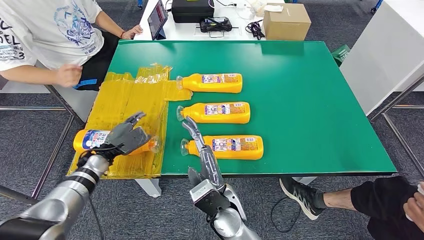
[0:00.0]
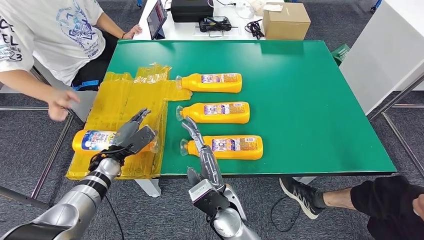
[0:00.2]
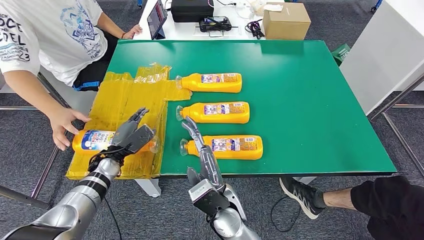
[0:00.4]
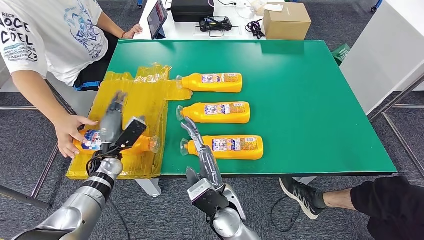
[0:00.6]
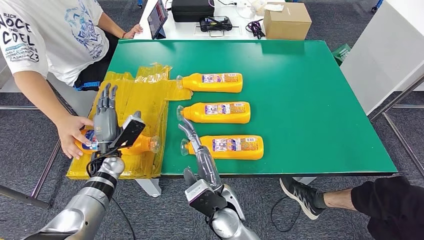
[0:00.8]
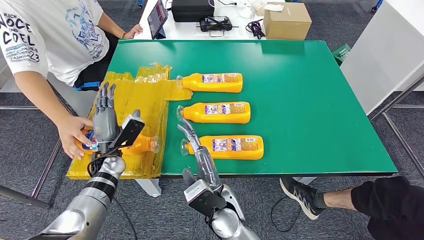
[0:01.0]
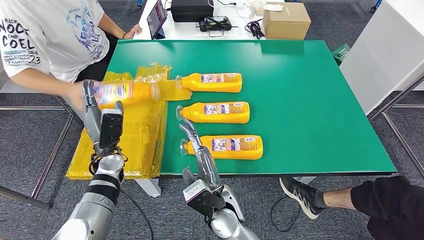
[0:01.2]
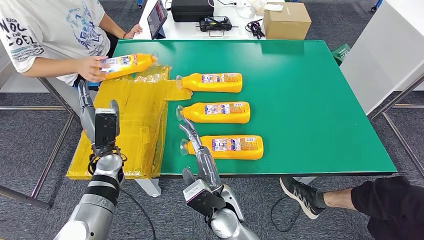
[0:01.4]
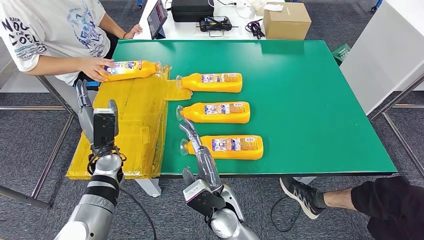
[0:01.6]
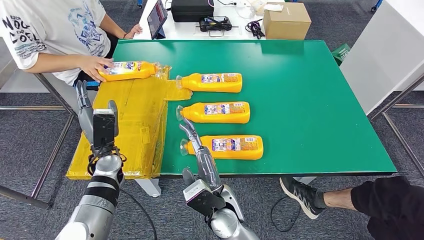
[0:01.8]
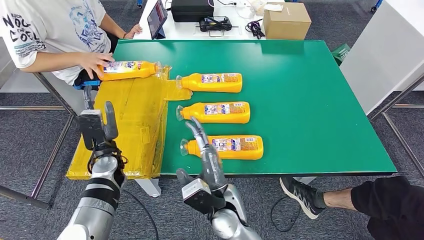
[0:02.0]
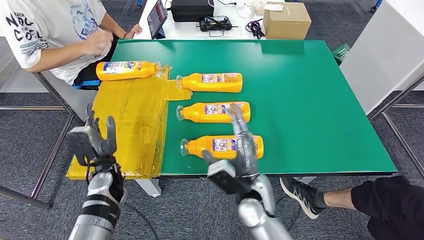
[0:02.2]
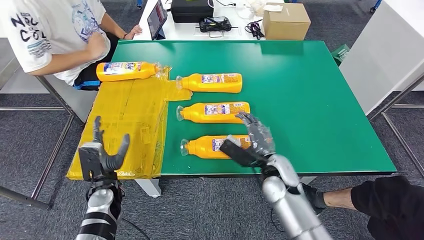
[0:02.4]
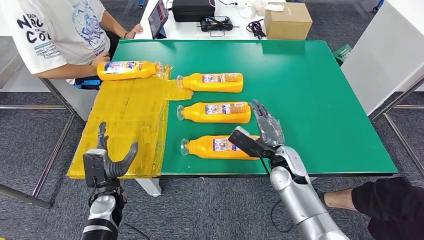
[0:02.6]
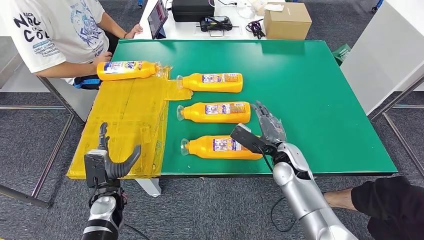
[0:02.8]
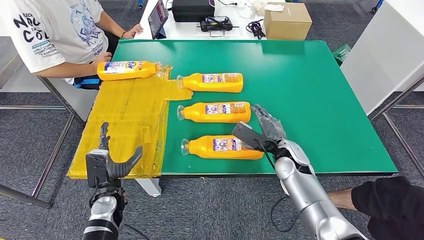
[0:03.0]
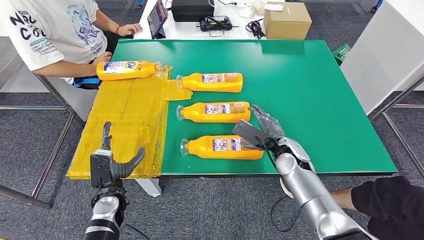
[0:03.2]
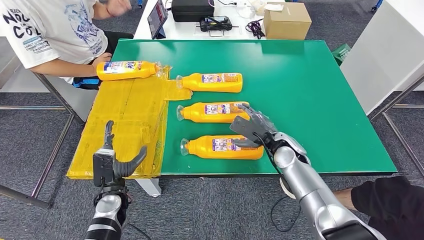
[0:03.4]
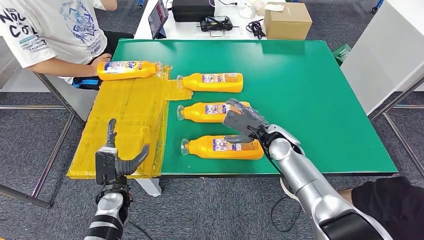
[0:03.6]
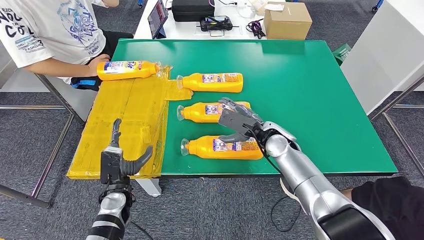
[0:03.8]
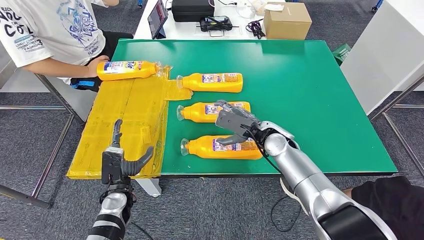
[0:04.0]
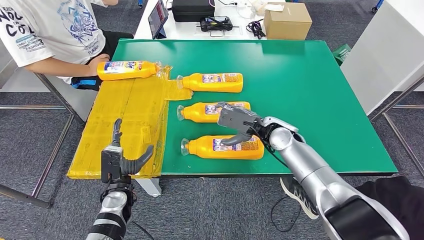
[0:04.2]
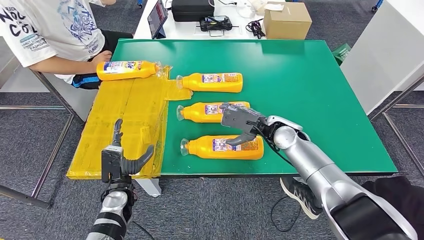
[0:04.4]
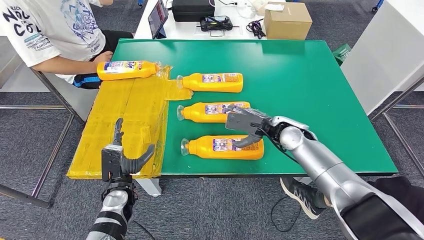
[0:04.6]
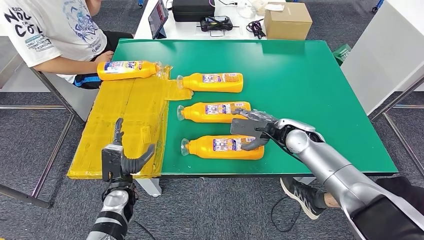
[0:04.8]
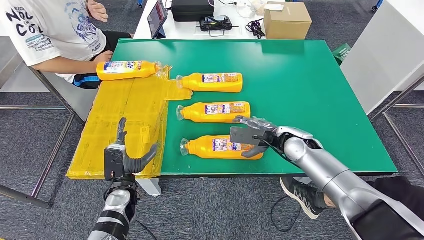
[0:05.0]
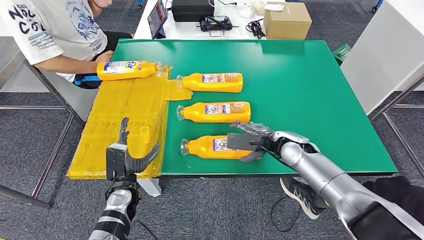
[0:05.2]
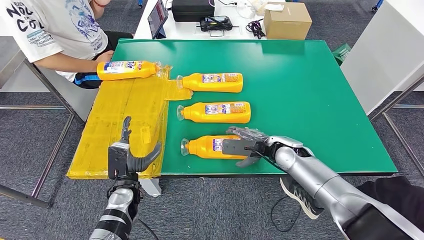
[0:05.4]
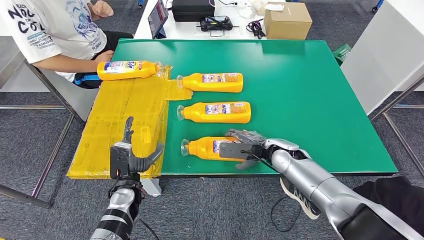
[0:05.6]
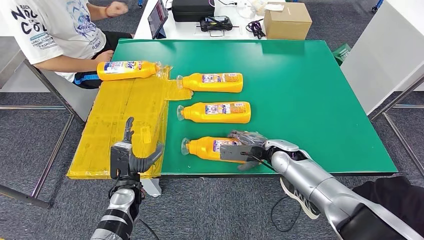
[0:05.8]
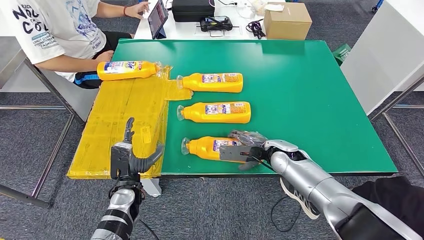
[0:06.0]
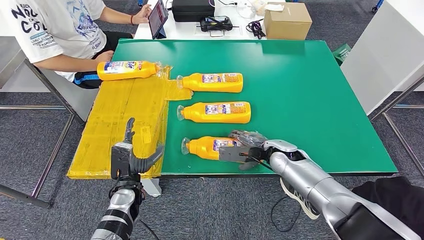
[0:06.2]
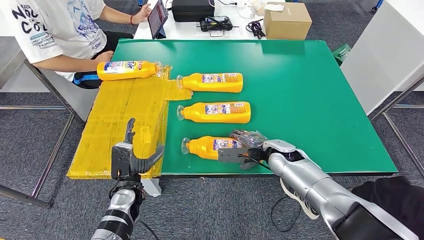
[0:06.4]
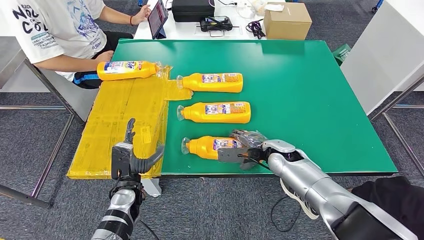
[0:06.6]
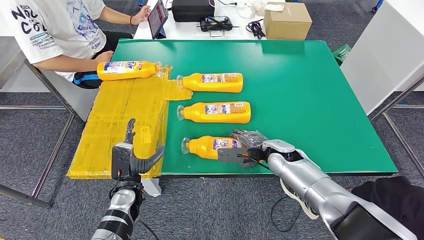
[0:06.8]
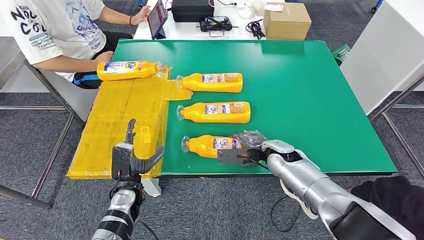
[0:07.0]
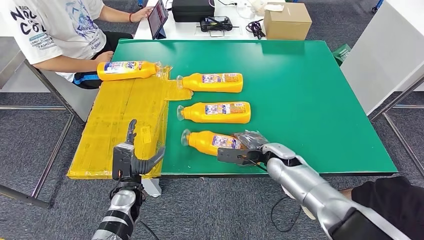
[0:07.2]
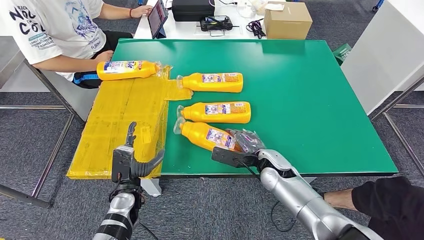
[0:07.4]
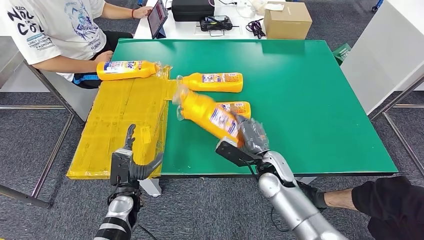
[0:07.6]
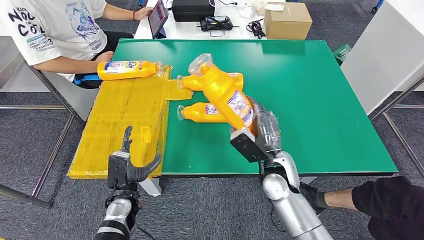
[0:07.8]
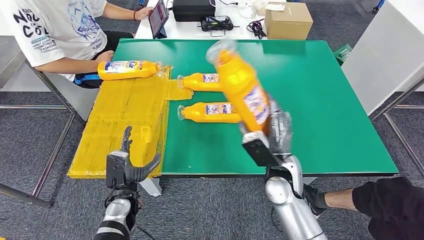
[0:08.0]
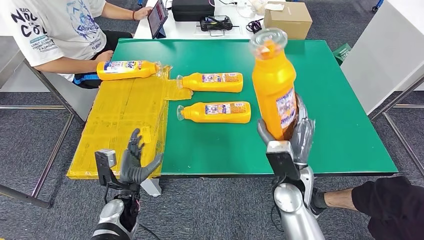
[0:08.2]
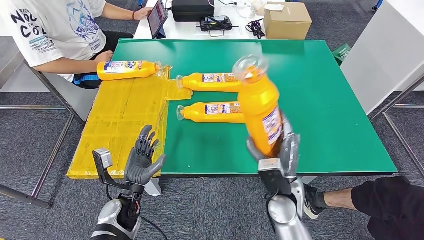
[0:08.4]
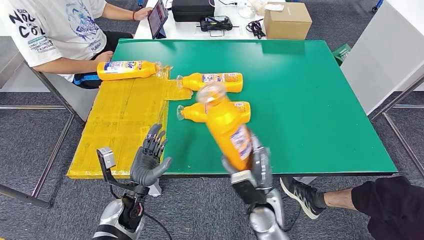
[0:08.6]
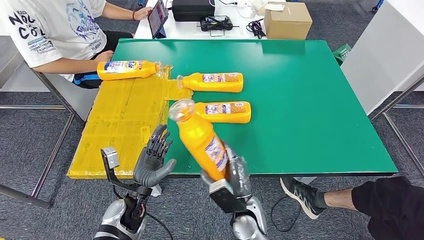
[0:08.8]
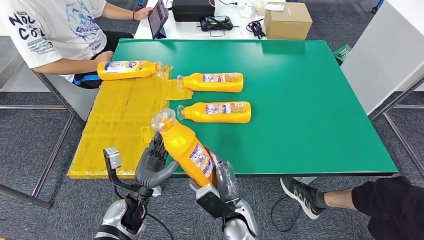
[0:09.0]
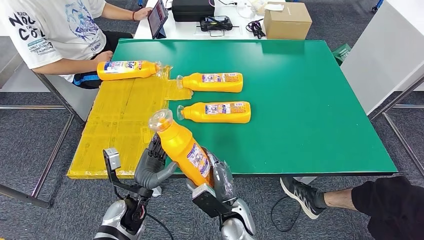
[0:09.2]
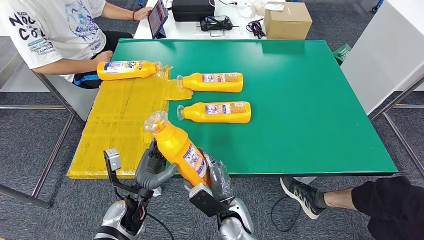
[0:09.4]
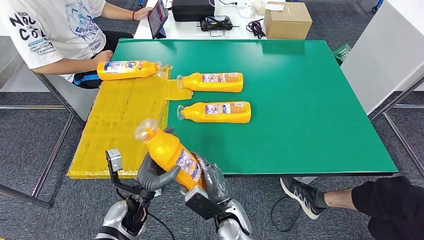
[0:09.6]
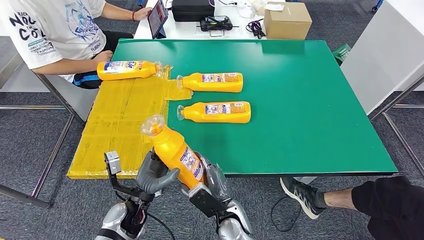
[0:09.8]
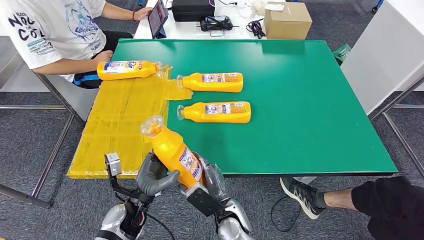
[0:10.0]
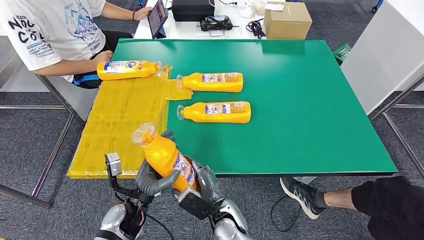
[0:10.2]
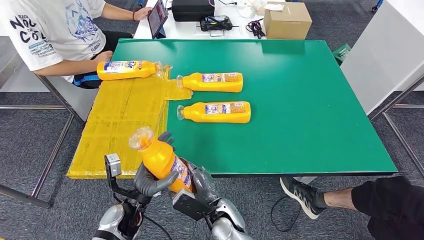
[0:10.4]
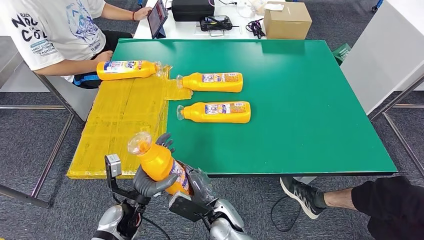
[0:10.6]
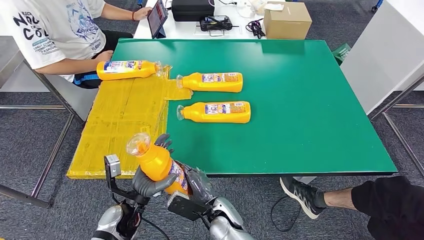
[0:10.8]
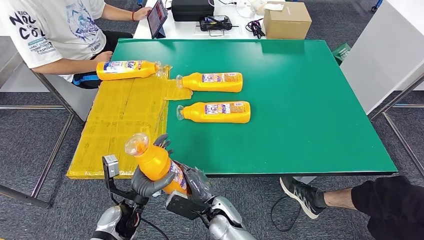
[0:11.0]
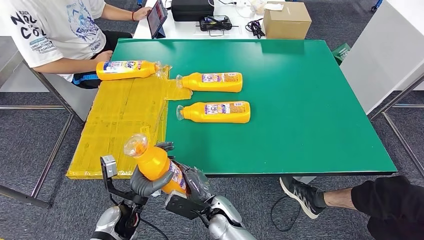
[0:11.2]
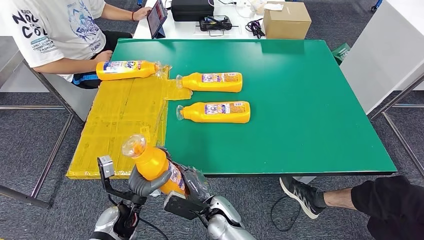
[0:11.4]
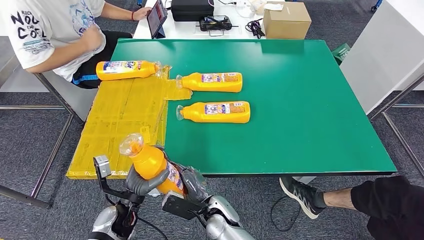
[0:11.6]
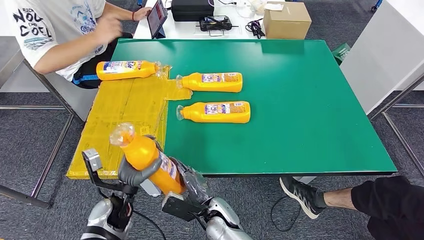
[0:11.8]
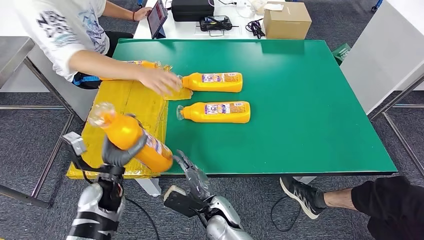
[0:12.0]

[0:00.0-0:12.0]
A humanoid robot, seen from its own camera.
Step, 0:01.0 to 0:09.0: Pick up the fast-moving consumer goods bottle from the table.
0:01.6 to 0:03.0: The left hand moves backward and downward, approximately 10 cm, while the right hand travels to the right and forward by some 25 cm.
0:03.0 to 0:04.4: The right hand is displaced upward by roughly 5 cm.
0:04.4 to 0:06.0: The right hand heads downward, covering roughly 5 cm.
0:06.0 to 0:07.6: The right hand is displaced to the left by about 5 cm.
0:07.6 to 0:09.0: The right hand is displaced backward, to the left and downward by roughly 15 cm.
0:09.0 to 0:10.4: The hands stay close to where they were, moving slightly.
0:10.4 to 0:12.0: The left hand goes some 5 cm forward.

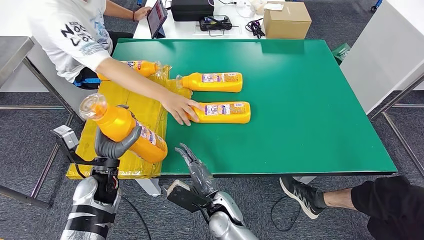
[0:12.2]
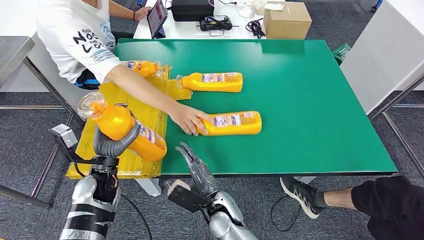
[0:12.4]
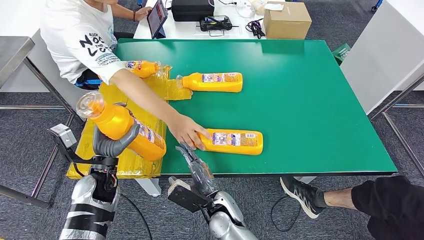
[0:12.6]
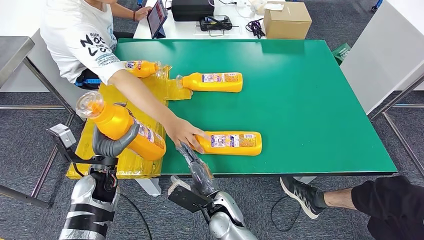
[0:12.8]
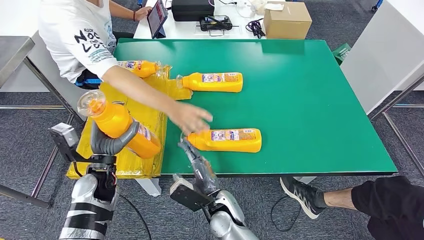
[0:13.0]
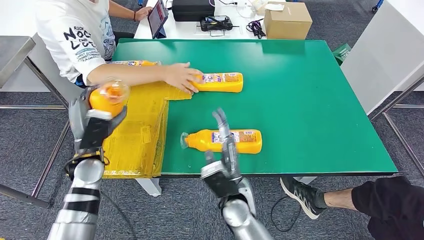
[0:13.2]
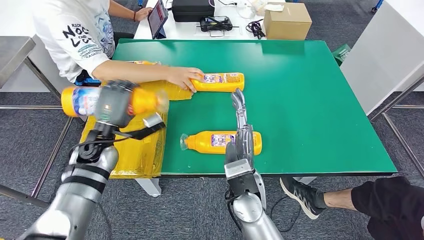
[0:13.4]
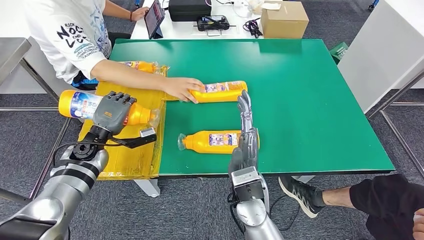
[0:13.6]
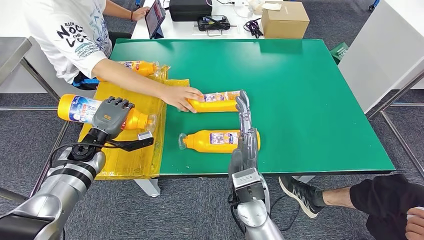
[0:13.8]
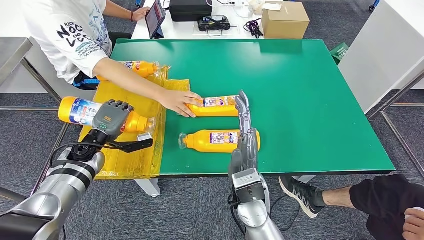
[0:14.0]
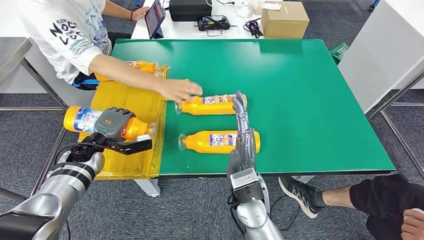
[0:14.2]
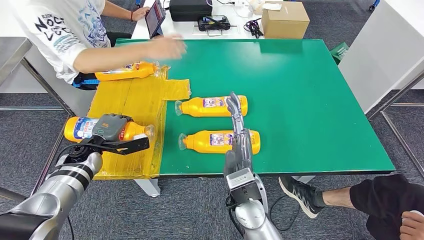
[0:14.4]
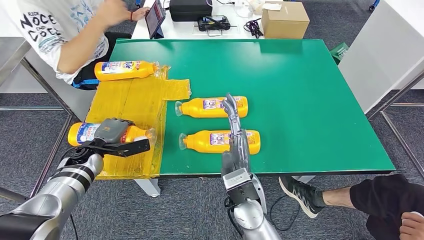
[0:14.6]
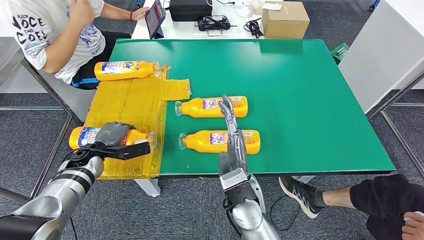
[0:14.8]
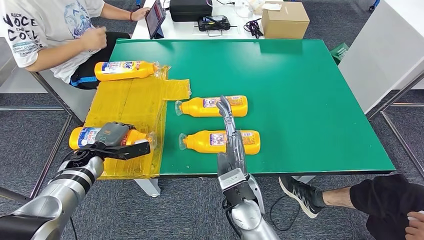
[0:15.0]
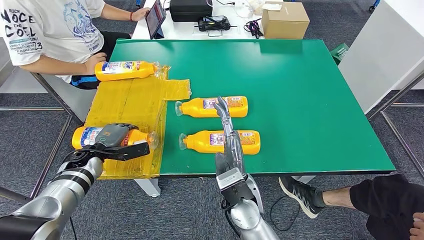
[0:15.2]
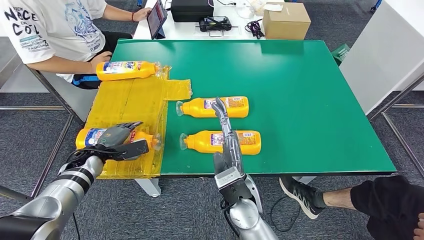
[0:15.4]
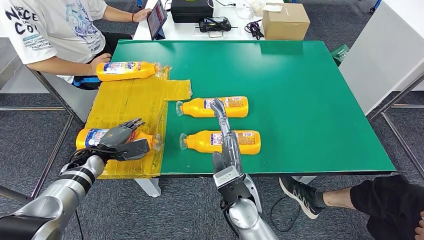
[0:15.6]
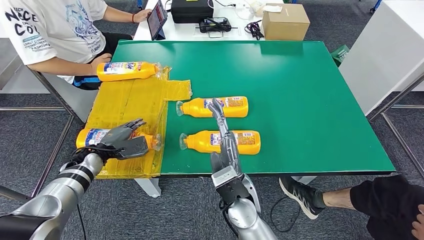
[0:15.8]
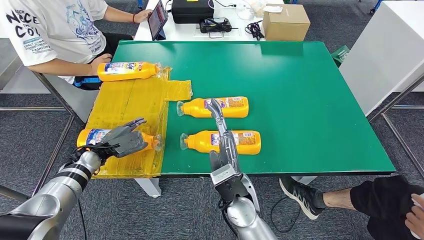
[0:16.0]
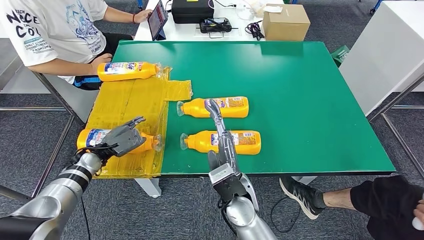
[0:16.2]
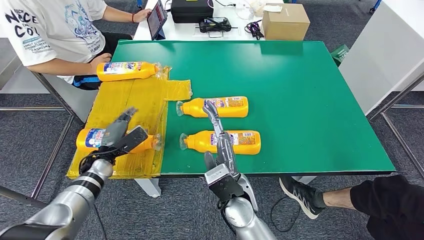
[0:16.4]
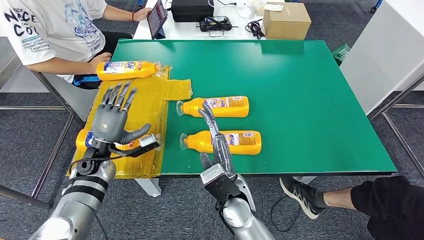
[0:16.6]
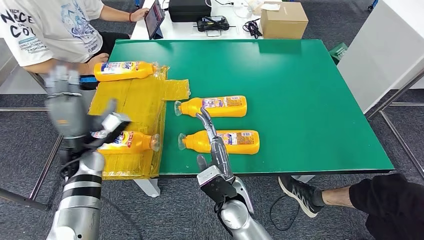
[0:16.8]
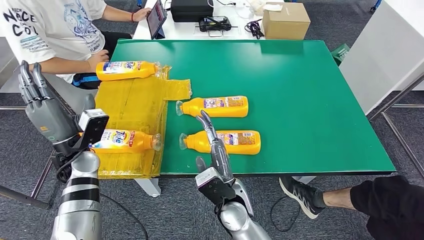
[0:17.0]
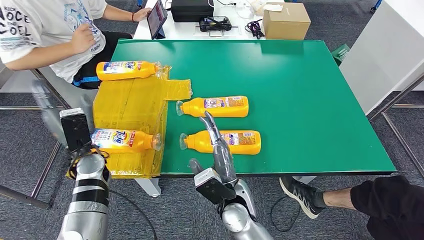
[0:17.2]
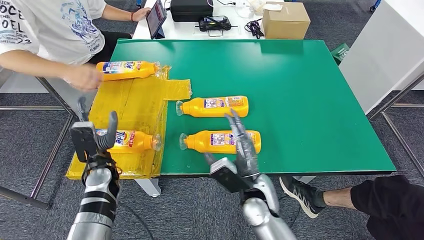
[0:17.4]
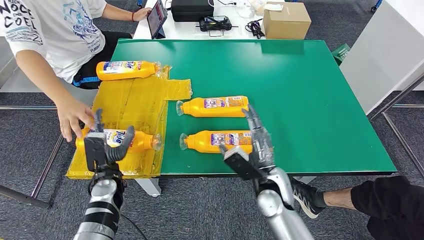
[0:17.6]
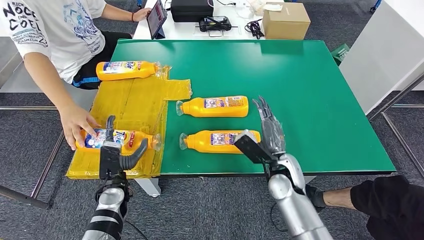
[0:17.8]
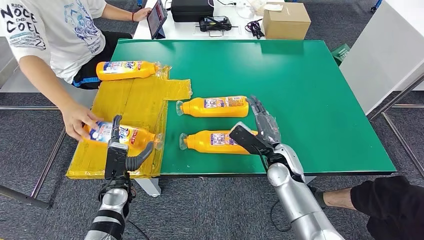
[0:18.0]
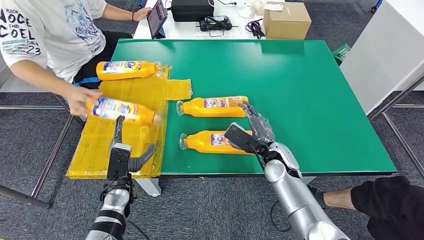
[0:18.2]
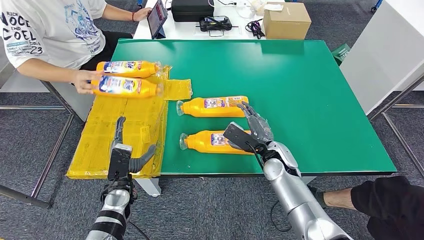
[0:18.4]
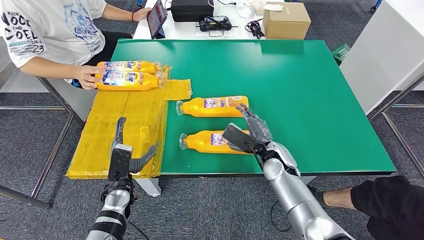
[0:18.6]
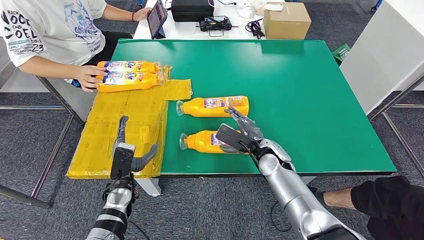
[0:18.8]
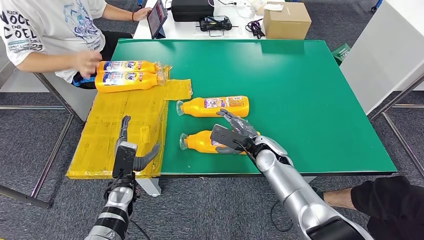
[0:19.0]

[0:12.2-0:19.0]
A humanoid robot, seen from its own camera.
Step, 0:12.2 to 0:15.8: Flip the fast-moving consumer goods bottle to the front side.
0:17.6 to 0:19.0: The right hand travels forward by approximately 10 cm.
